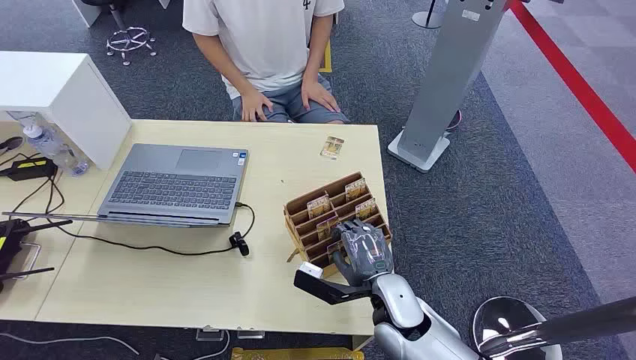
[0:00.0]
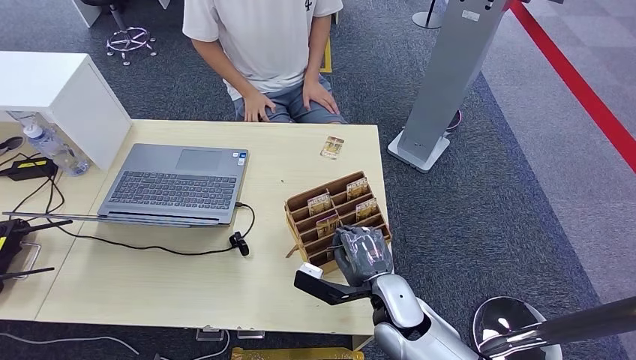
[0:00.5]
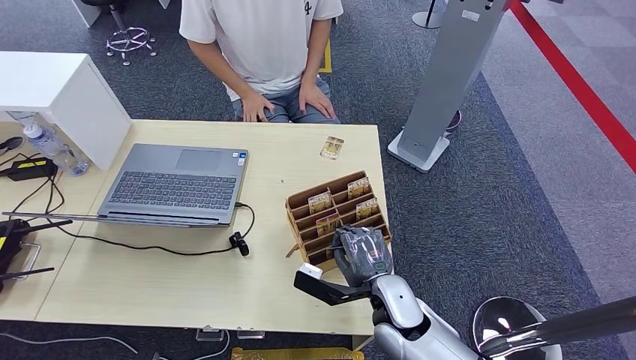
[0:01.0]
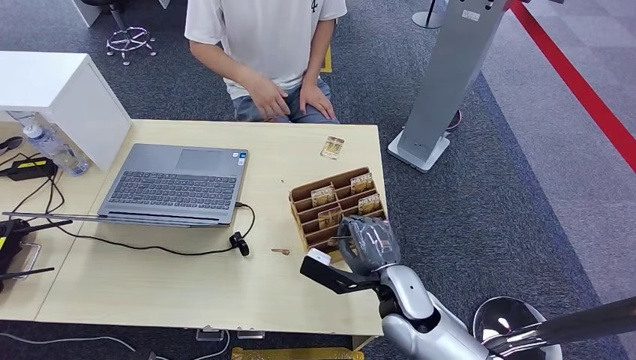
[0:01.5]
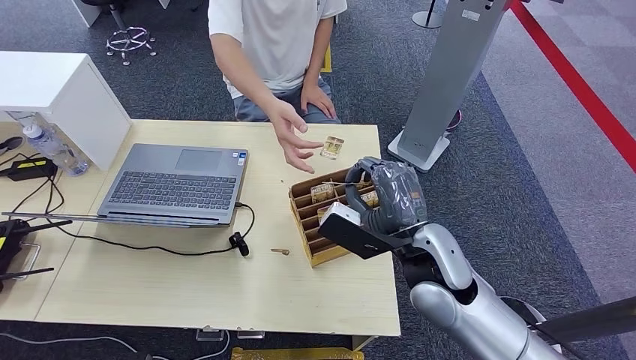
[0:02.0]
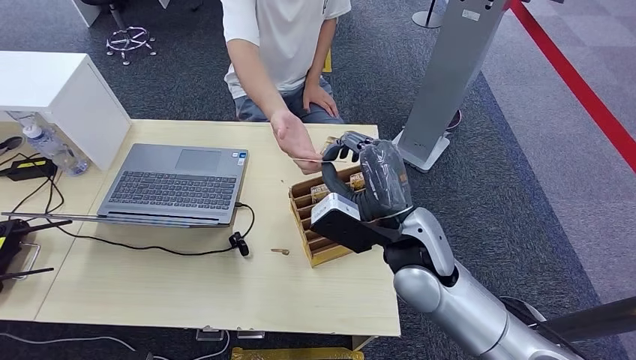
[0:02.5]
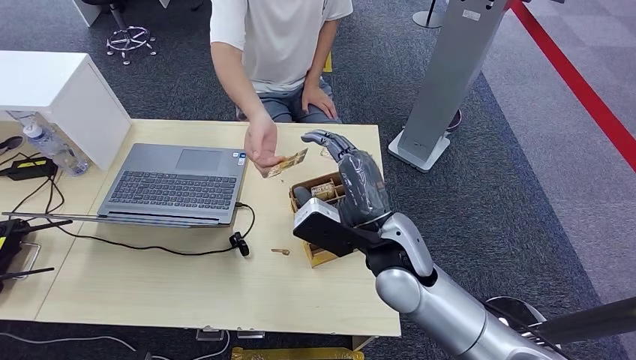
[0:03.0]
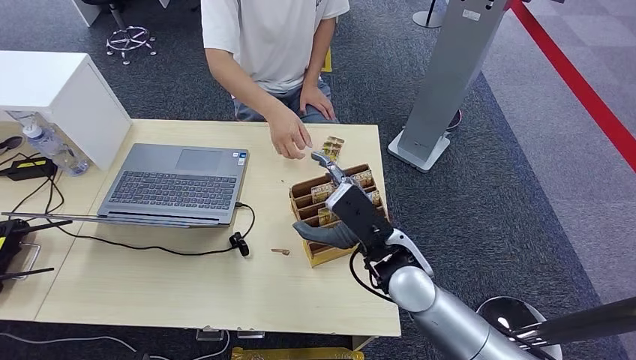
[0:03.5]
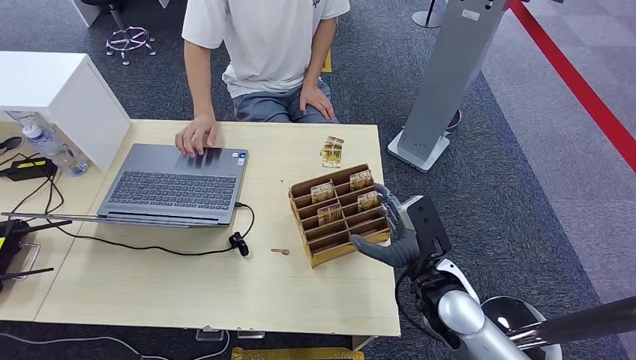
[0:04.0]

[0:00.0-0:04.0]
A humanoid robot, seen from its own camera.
Step, 0:00.0 to 0:01.5: Pick up the key card from the card box.
Step, 0:02.0 to 0:04.0: Hand the key card to the target.
0:02.0 to 0:04.0: The right hand moves downward, some 10 cm.

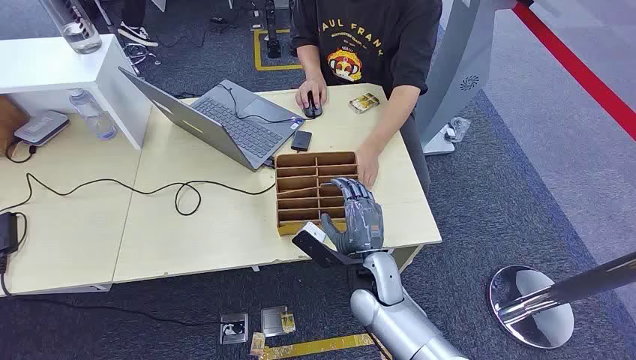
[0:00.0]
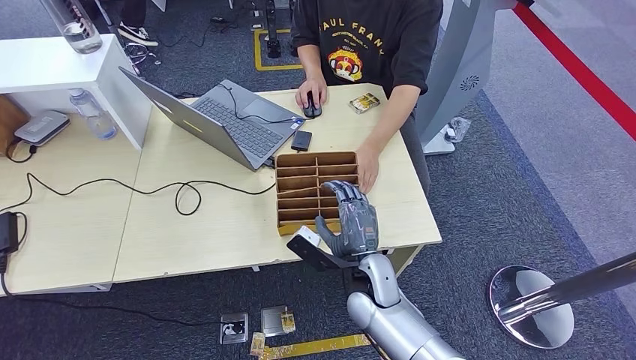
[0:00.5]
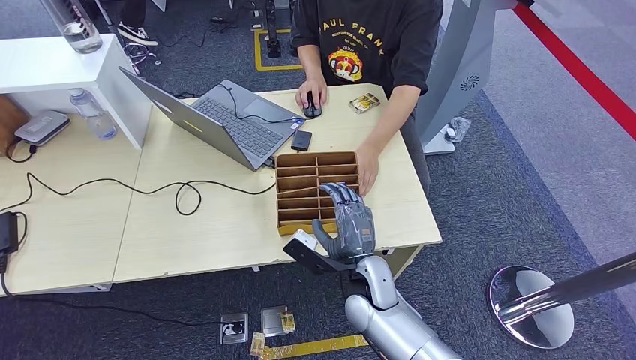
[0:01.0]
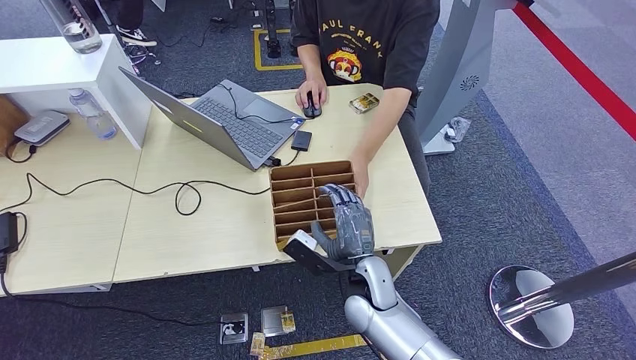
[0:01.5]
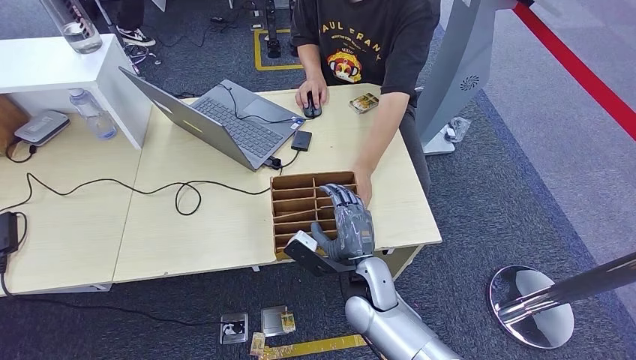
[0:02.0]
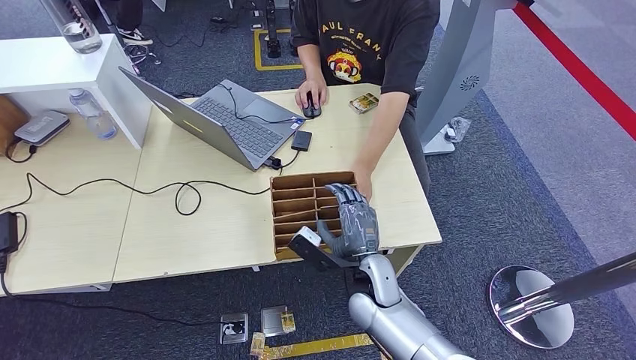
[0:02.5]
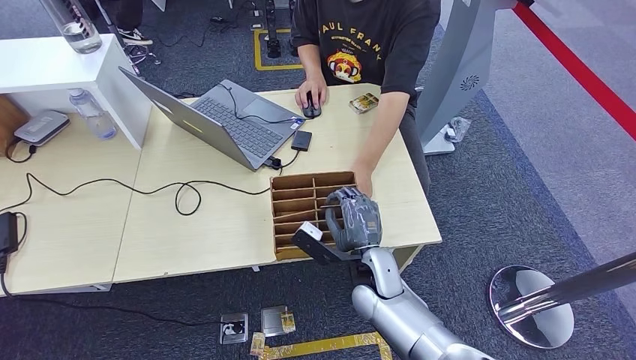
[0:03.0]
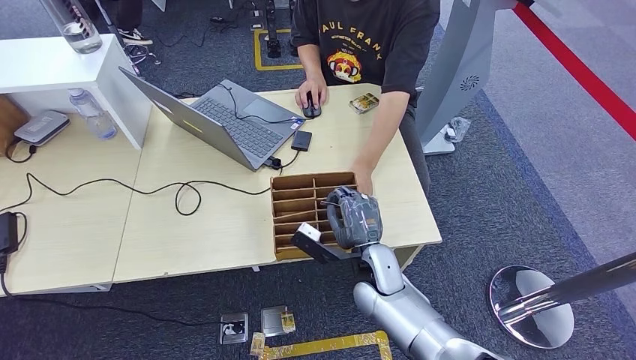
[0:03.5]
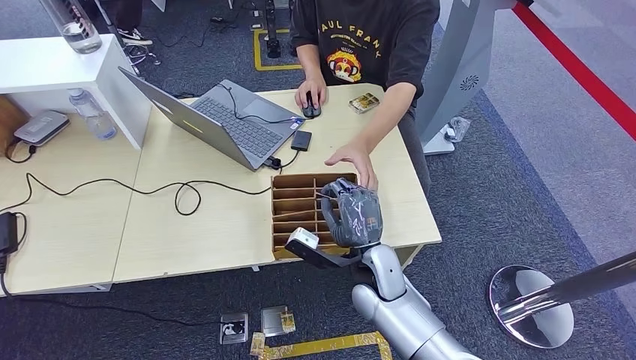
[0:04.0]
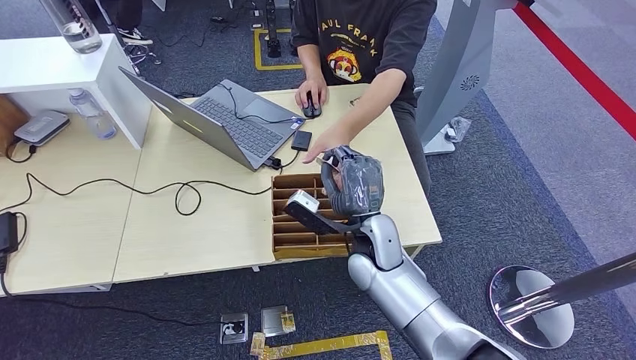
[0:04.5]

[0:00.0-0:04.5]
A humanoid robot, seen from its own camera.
Step, 0:00.0 to 0:04.0: Pick up the key card from the card box.
0:02.0 to 0:04.5: The right hand heads upward and forward, covering approximately 10 cm.
